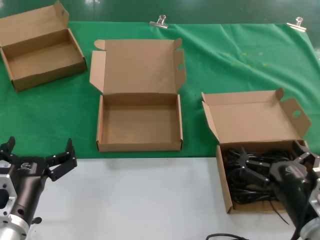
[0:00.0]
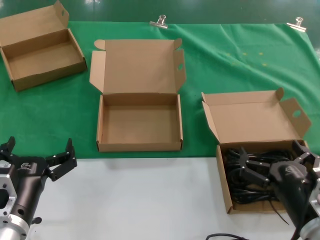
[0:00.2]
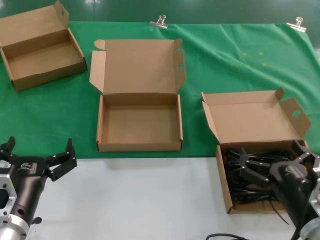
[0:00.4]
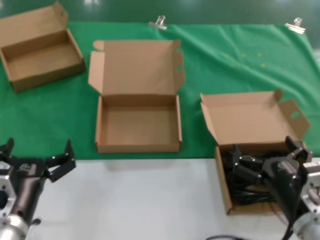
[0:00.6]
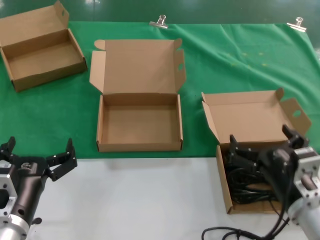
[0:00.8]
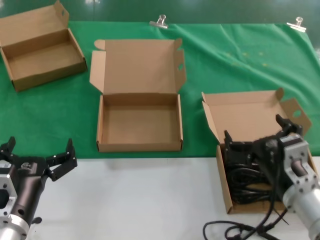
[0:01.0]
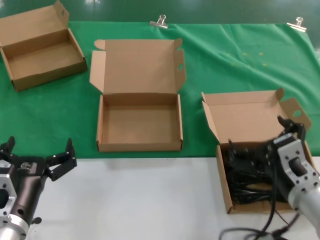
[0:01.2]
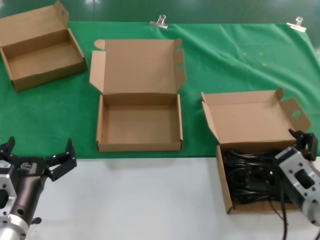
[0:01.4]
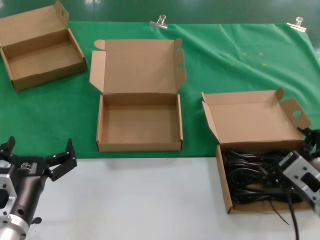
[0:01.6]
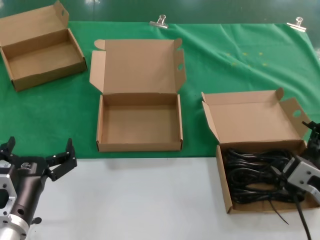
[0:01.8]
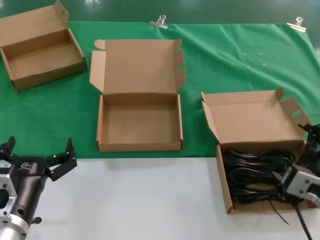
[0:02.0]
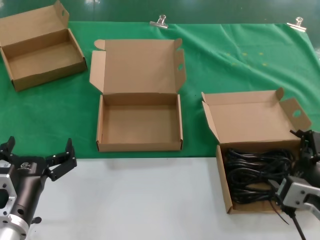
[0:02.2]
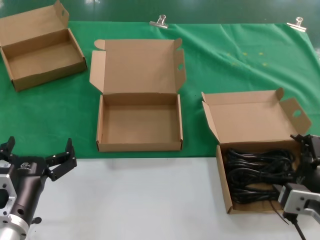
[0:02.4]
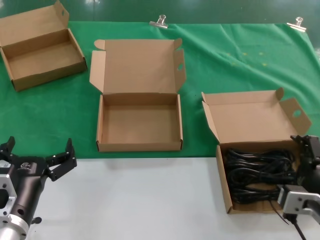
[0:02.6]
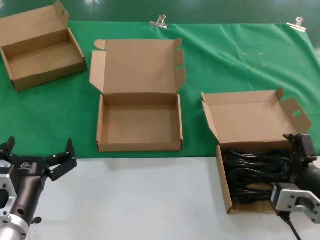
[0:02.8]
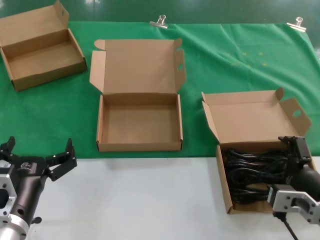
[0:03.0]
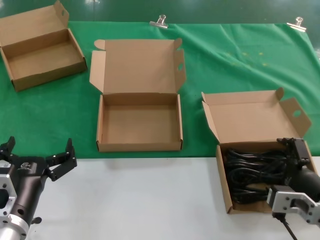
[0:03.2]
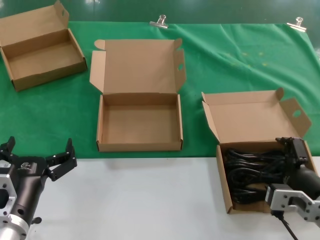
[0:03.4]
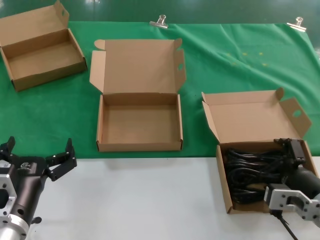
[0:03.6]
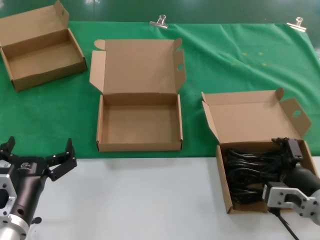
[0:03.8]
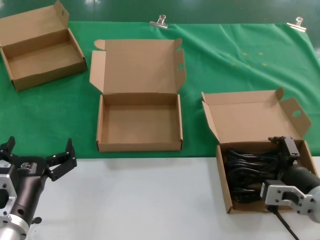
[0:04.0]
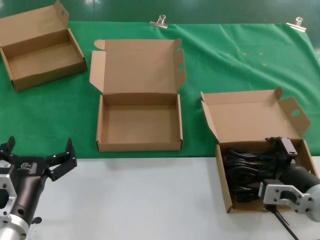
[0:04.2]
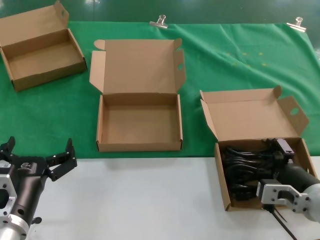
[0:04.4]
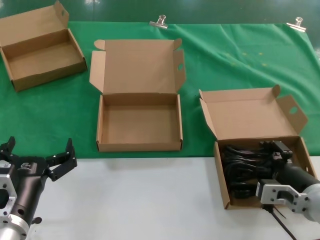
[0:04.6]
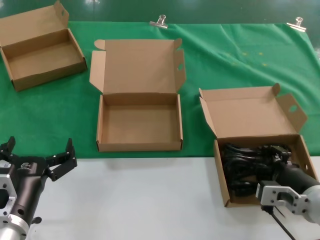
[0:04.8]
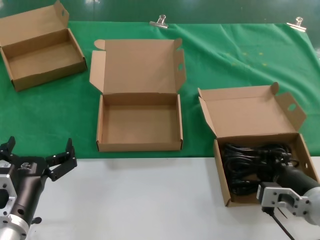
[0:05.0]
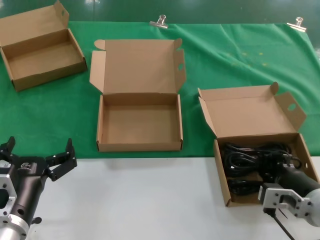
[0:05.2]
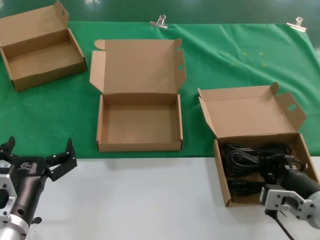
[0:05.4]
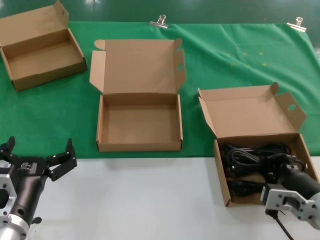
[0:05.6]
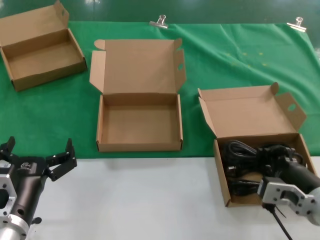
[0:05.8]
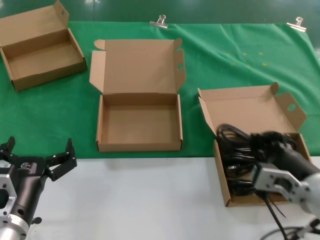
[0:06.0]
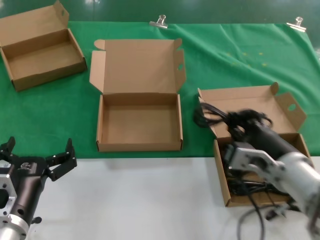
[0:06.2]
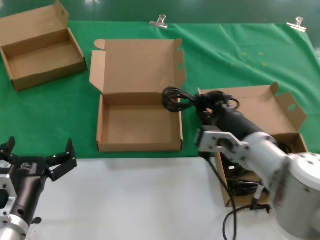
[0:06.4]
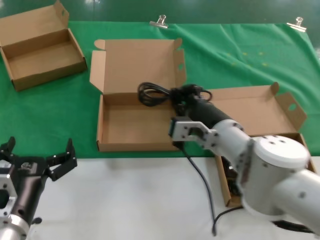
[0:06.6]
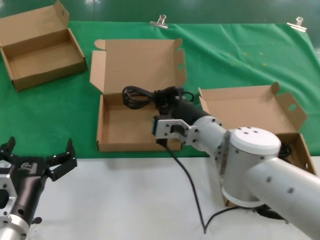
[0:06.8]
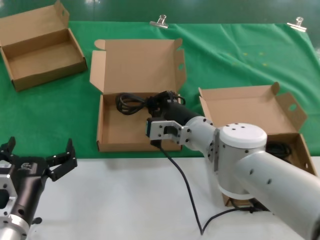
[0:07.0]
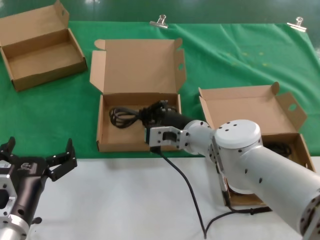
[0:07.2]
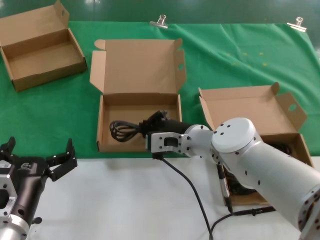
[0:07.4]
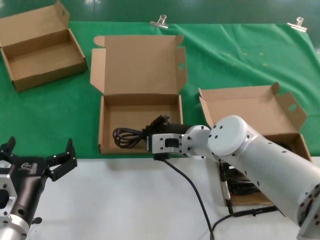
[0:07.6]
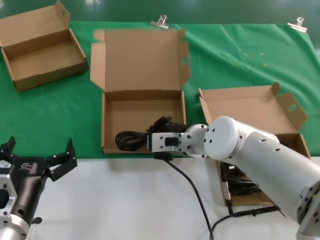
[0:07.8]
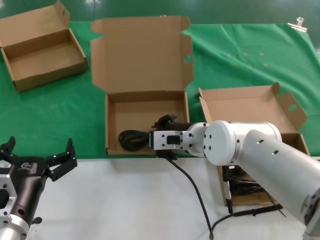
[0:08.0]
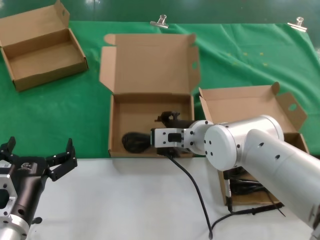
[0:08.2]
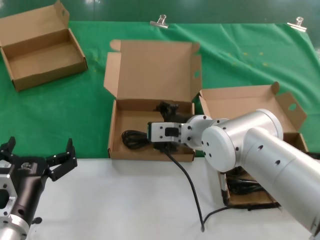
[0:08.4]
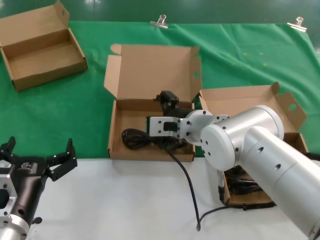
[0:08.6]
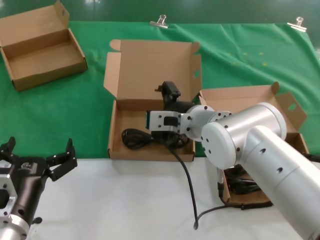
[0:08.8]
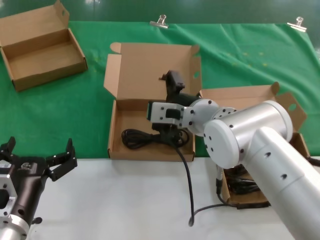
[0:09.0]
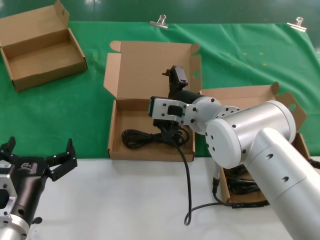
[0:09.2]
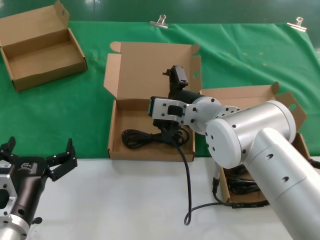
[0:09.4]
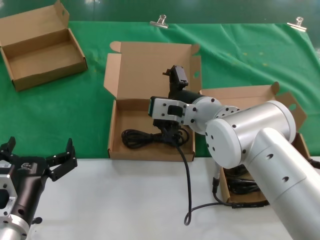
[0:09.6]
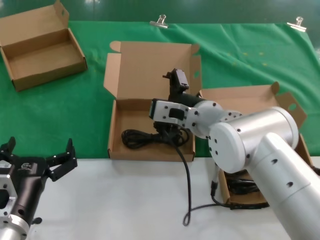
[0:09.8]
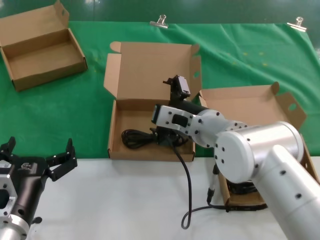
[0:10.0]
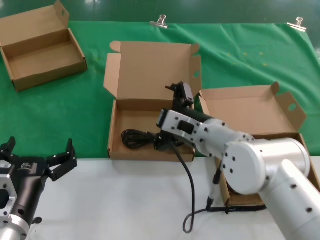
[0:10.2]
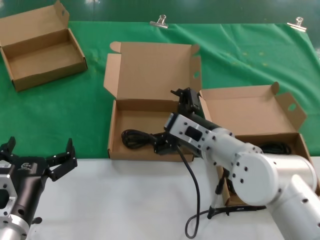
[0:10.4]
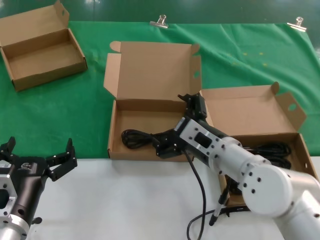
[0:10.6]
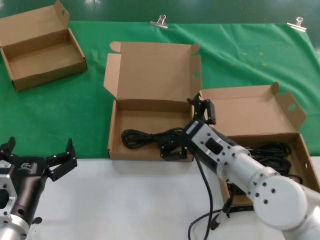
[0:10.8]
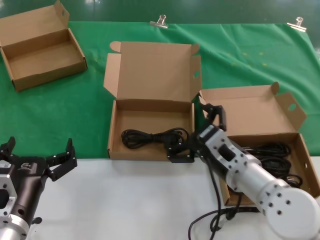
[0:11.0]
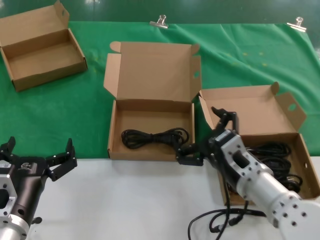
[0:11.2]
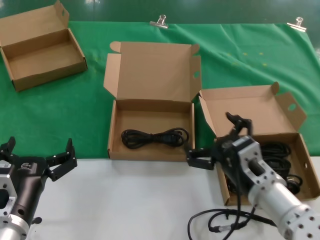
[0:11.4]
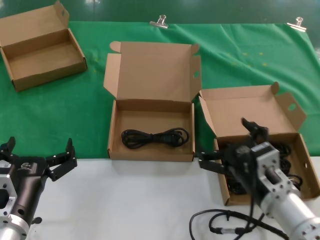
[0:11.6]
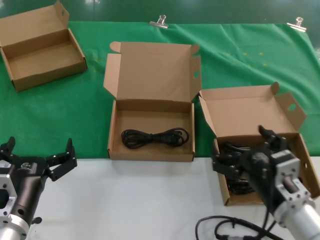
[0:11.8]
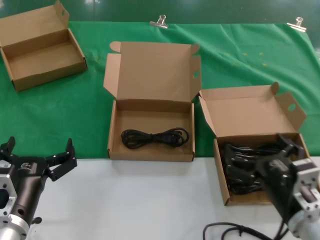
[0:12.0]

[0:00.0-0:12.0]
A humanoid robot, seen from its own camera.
Task of the whole recording: take the parts from the box containing them and put them into an empty box.
Step, 0:00.0 to 0:04.8: Grasp the data cable.
Step, 0:05.0 to 0:07.8: Place the data cable in the another box.
0:00.0 to 0:01.6: The right hand goes about 5 cm upward.
0:03.0 to 0:04.4: The right hand travels forward by about 5 cm.
0:04.4 to 0:06.0: The right hand ends up about 5 cm from where it was.
0:06.0 to 0:07.6: The right hand moves forward and to the left, approximately 25 cm.
0:07.6 to 0:09.0: The right hand goes approximately 10 cm upward.
0:09.0 to 0:10.4: The right hand moves approximately 5 cm.
0:10.4 to 0:12.0: The right hand is displaced backward, to the right and downward by some 20 cm.

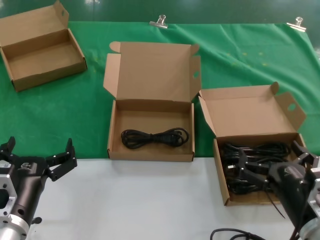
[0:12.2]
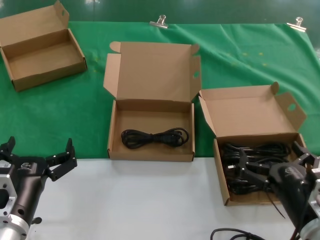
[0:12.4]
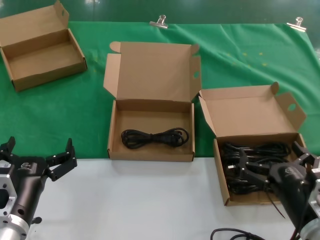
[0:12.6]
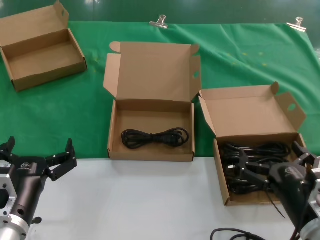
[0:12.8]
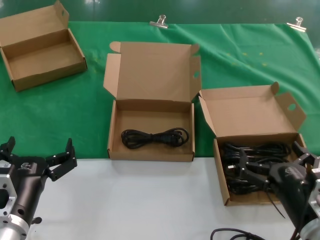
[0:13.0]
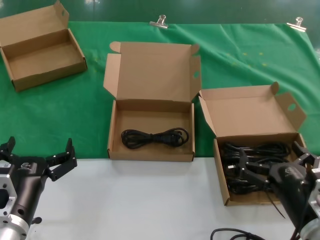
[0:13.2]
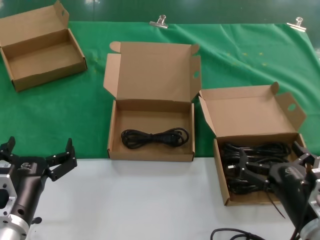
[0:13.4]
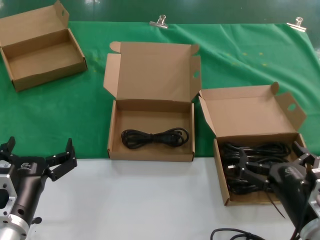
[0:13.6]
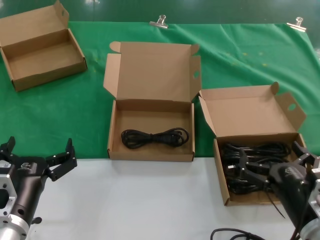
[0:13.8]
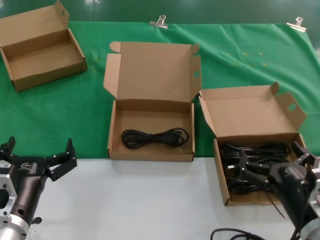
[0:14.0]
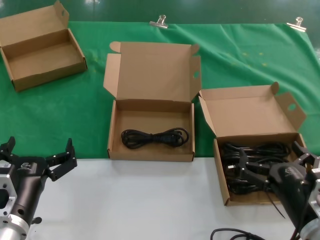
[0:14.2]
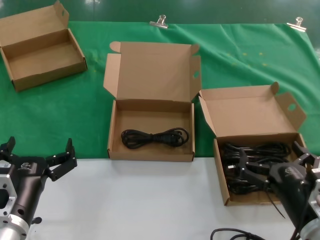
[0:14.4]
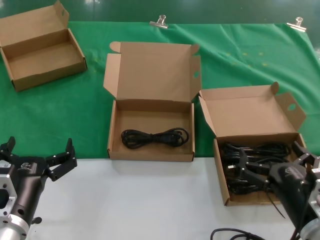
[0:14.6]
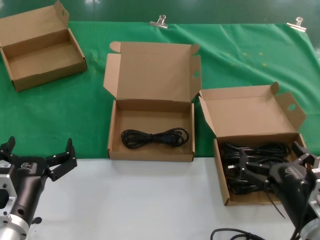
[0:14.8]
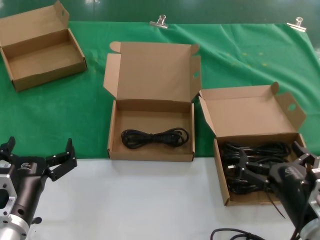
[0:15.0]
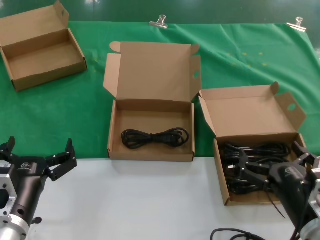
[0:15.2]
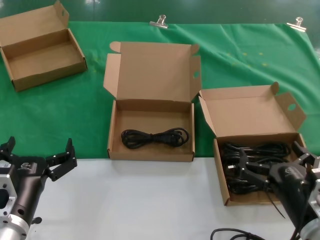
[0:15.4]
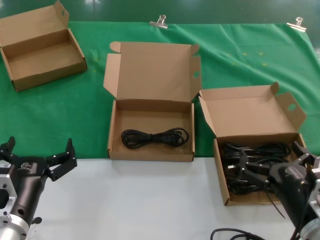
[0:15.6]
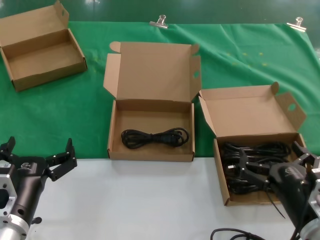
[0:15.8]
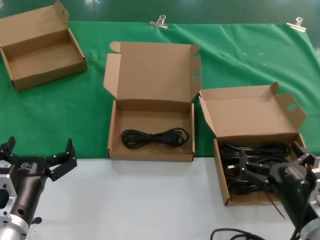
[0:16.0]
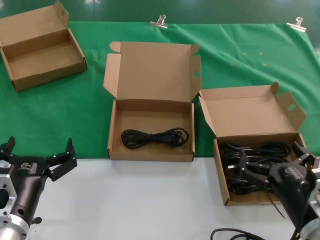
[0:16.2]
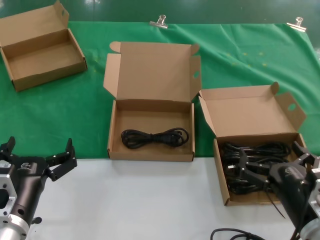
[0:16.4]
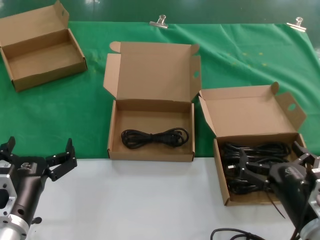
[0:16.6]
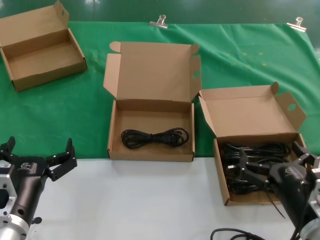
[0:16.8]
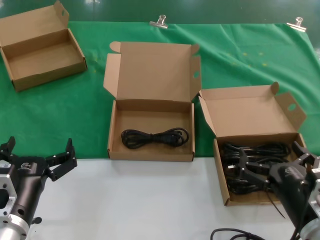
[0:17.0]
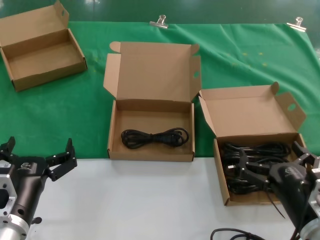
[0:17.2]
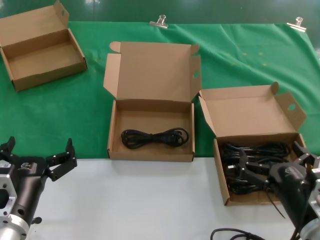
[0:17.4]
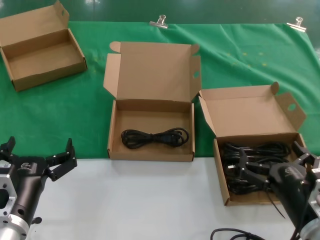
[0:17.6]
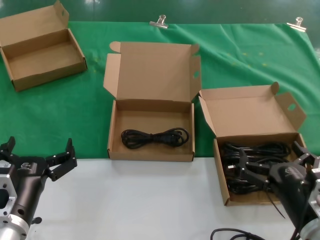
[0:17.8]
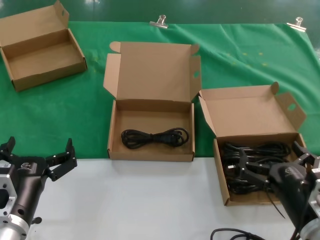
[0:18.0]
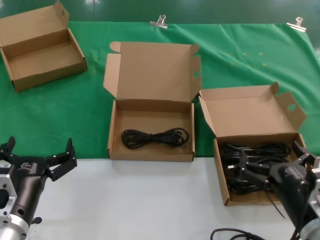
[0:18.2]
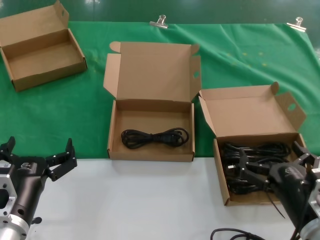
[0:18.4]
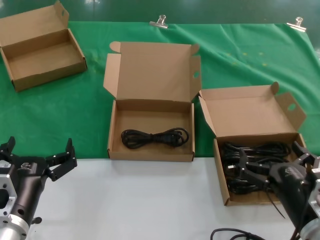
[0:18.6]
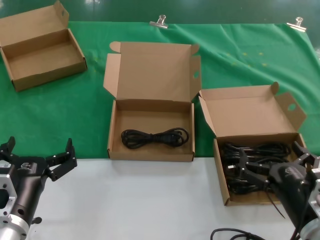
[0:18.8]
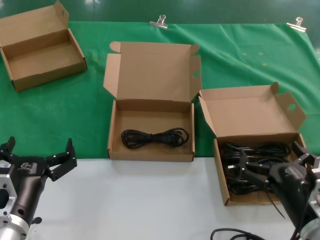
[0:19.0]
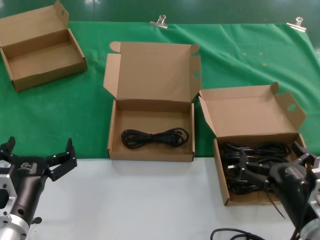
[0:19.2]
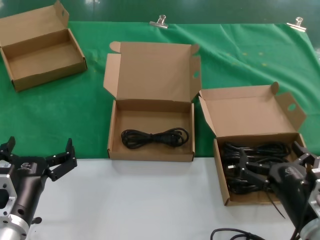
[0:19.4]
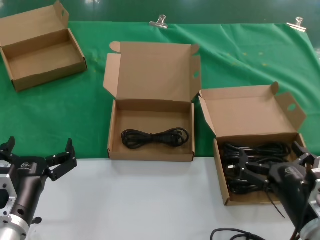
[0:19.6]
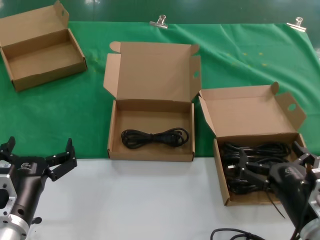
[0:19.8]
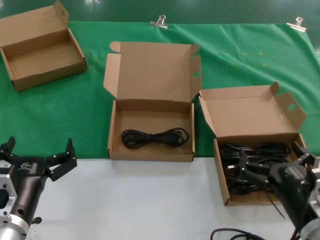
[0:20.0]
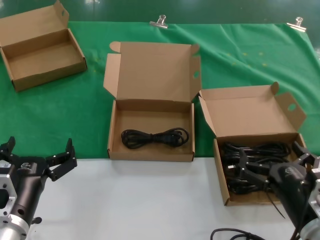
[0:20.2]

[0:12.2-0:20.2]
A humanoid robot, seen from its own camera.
Task of the whole recording: take the parts from the box containing them and put them into an empty box.
0:12.2 to 0:20.2: Neither hand changes place.

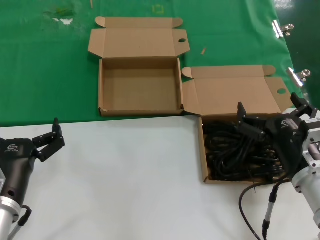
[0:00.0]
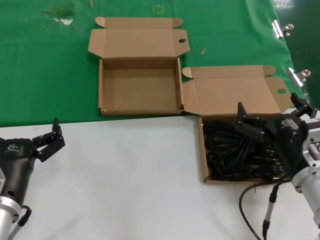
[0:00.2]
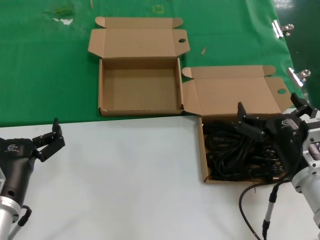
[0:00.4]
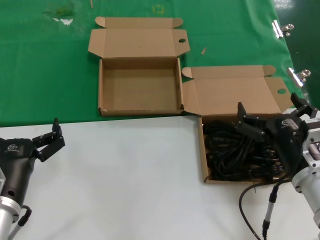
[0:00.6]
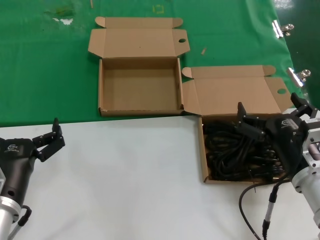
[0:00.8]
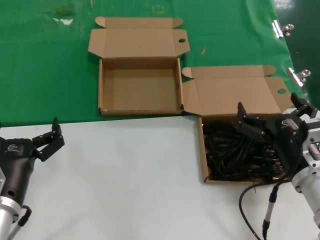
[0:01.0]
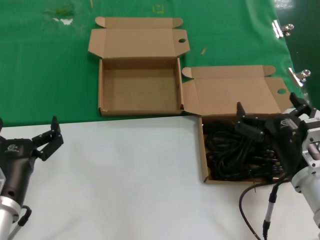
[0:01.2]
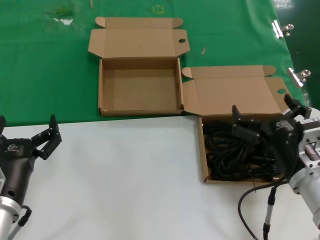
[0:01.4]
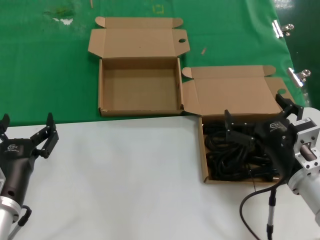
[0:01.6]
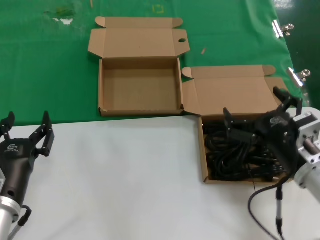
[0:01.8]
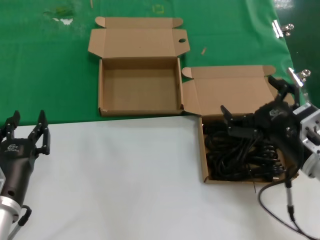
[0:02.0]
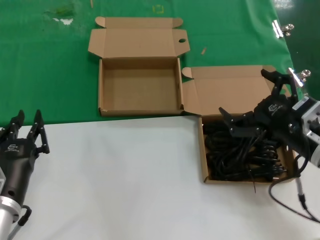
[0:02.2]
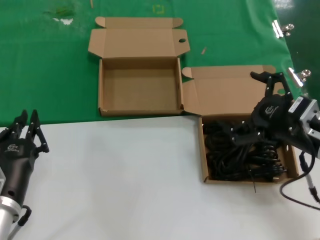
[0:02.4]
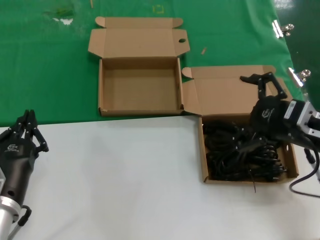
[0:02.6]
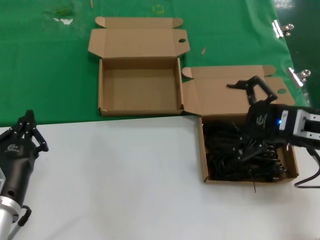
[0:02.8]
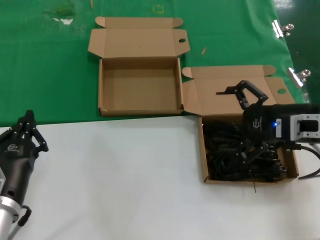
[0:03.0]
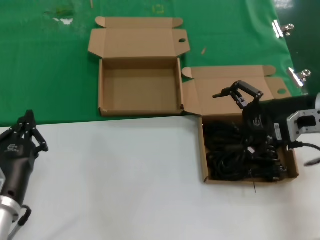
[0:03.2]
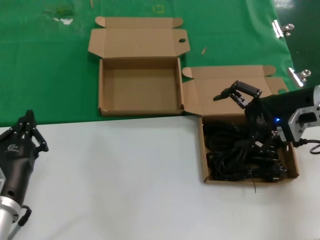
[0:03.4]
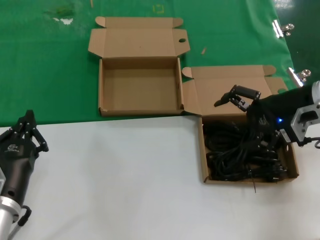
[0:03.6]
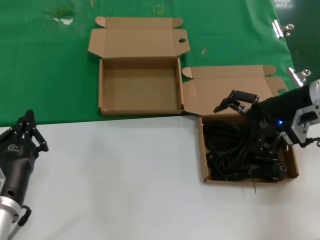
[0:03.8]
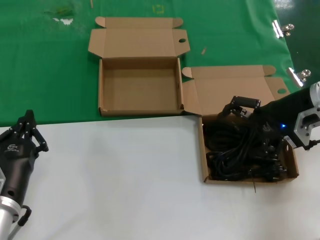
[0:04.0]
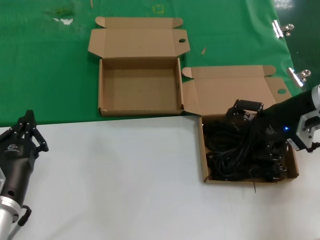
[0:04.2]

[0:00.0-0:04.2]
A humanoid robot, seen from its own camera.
Task of the whole recording: take the parts from the box containing them and put them into an empty box.
0:00.0 to 0:01.4: The two hands keep their place.
0:01.4 to 0:02.8: The right hand goes about 15 cm upward, to the right and forward.
0:02.8 to 0:04.2: The right hand is displaced forward by approximately 10 cm.
